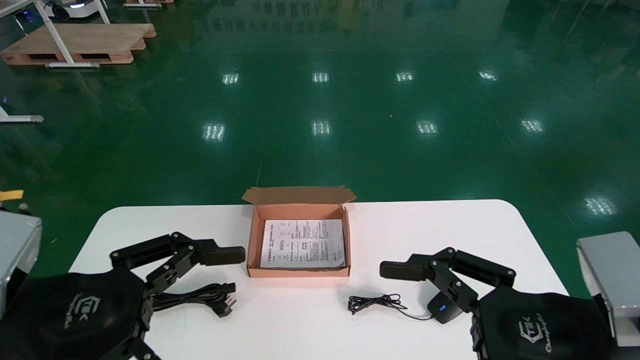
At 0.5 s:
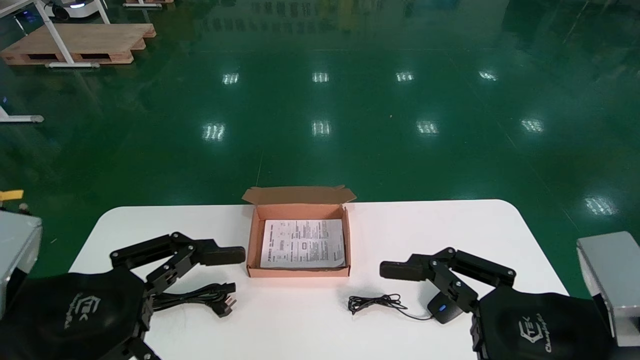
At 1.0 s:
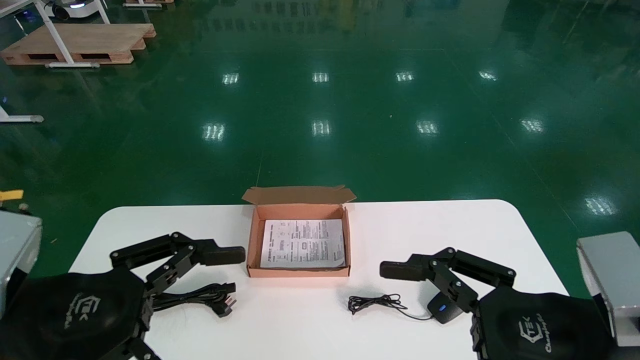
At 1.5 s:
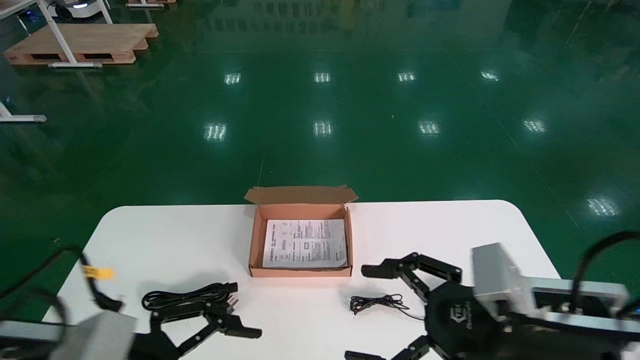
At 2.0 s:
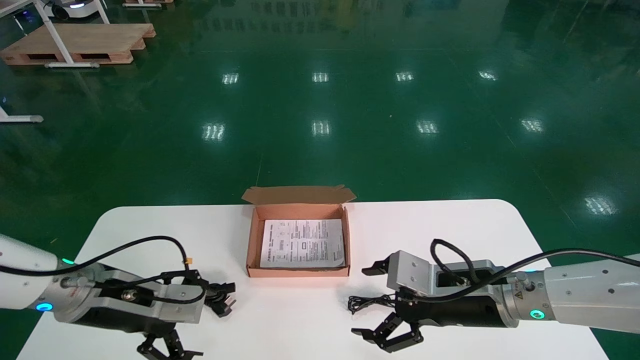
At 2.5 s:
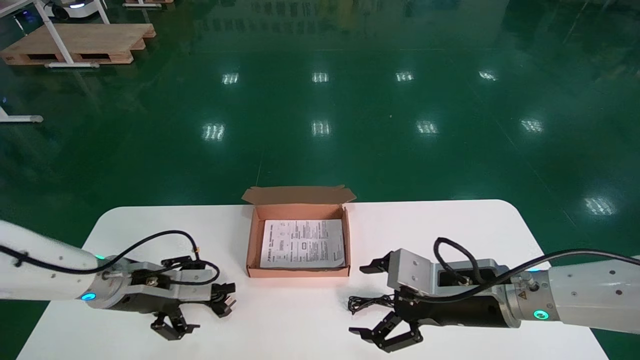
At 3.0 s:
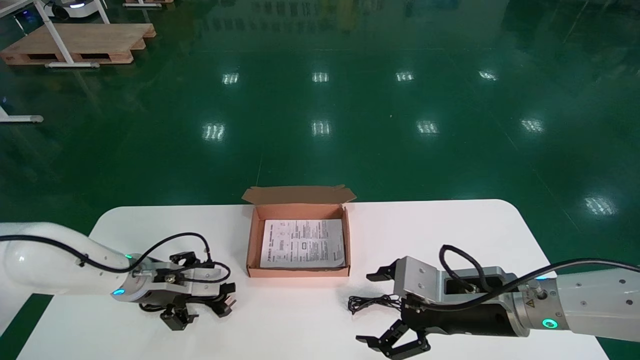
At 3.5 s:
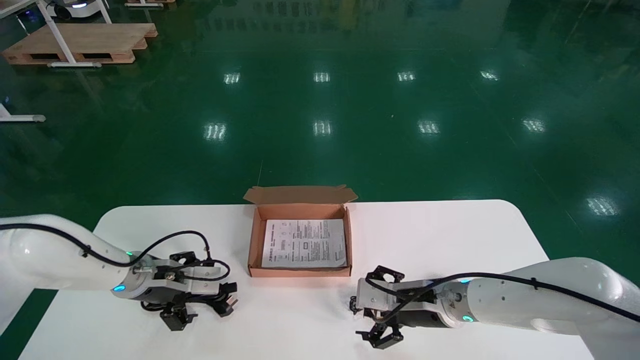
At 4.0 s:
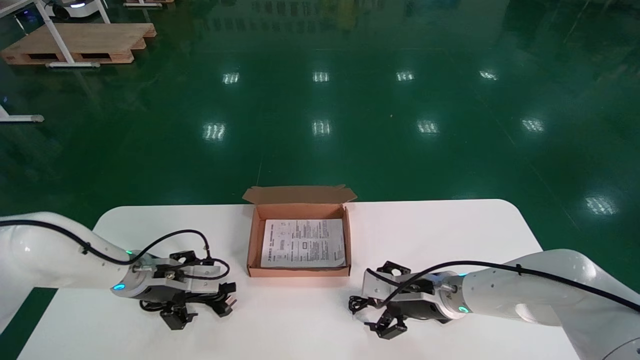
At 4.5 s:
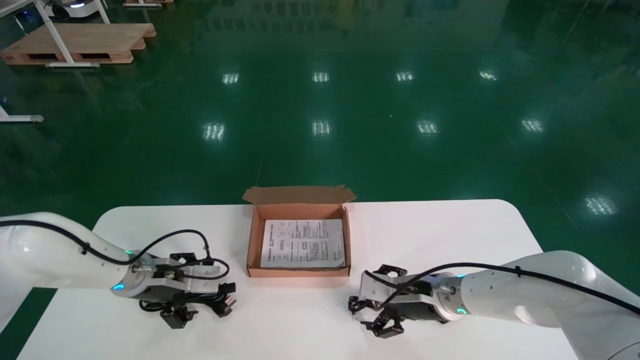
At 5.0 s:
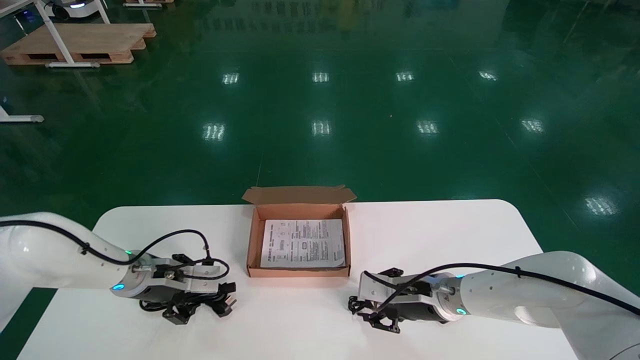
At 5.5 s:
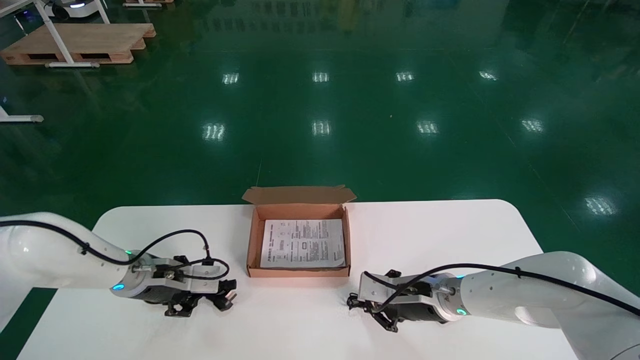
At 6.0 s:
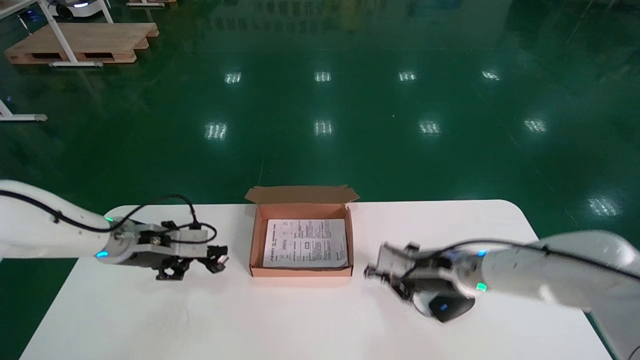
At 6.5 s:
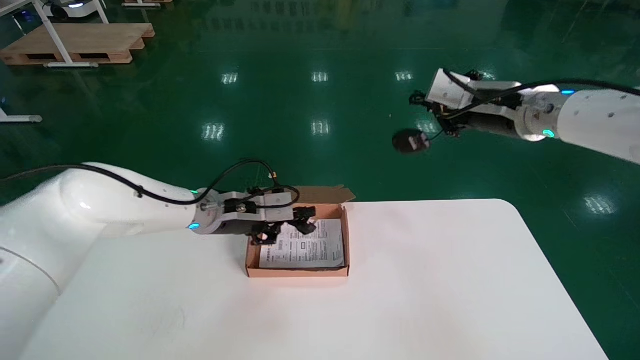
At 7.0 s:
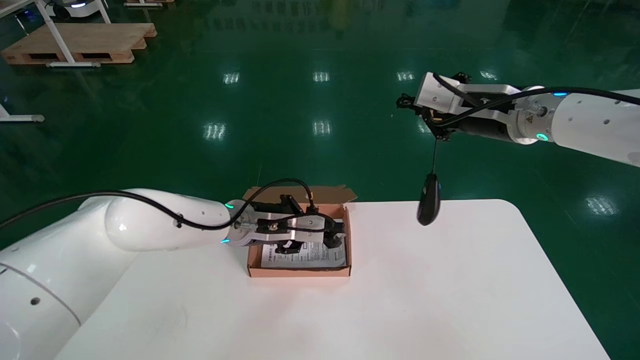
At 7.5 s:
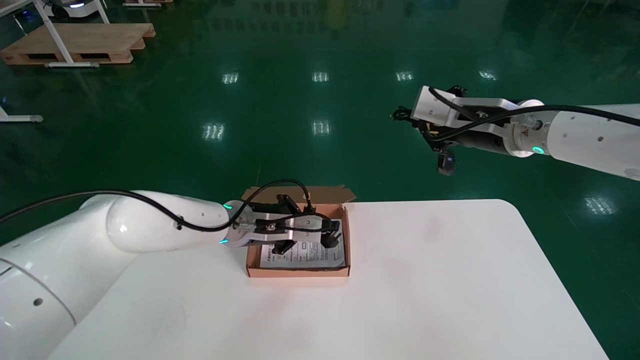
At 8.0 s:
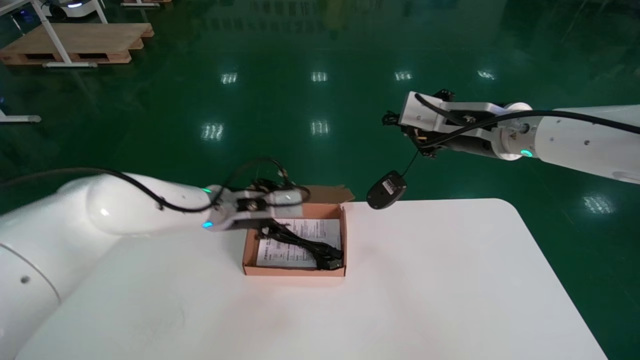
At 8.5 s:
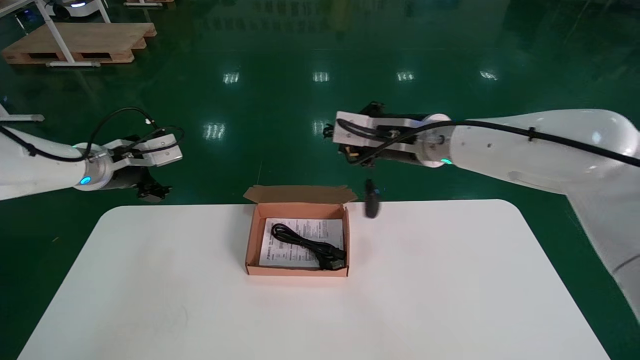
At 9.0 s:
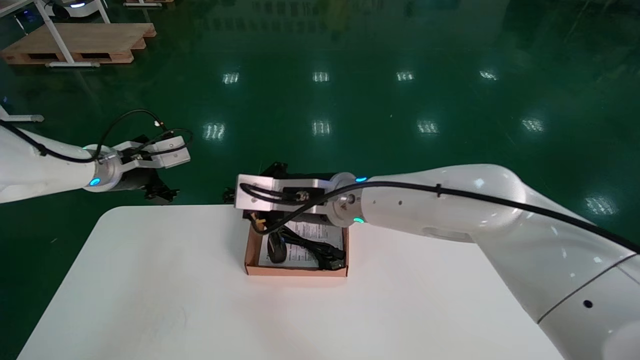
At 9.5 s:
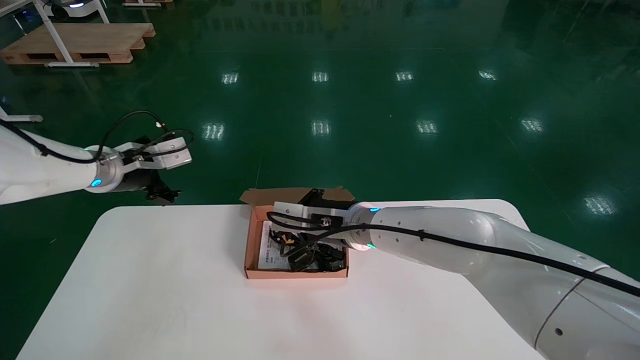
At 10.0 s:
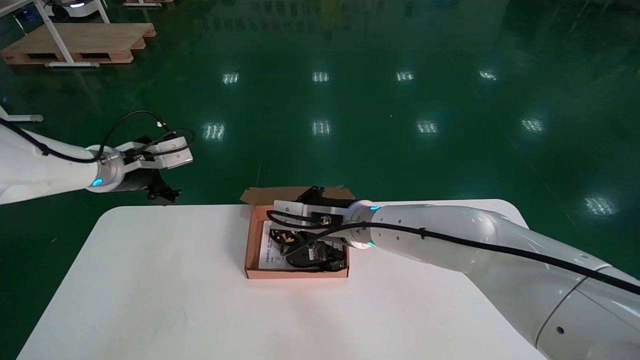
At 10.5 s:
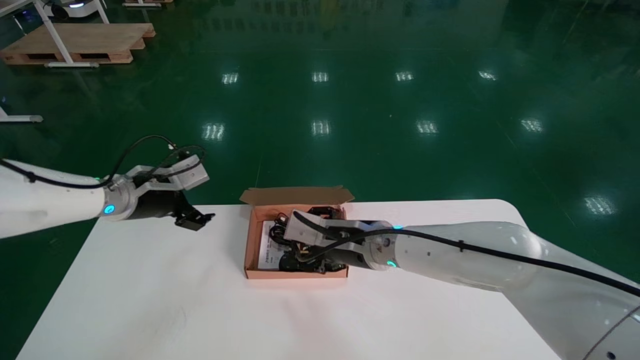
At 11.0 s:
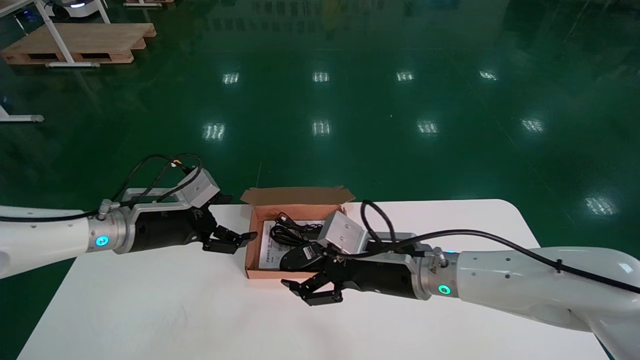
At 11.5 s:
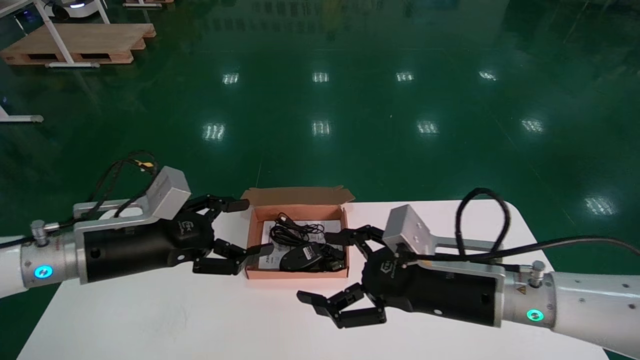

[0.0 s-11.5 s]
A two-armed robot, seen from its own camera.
Step, 1.5 to 6.0 s: Simultaneously pick up the mouse and power cord from the accessory packaging area.
Step, 6.5 to 10.0 s: Place the mouse and power cord into the box.
0.0 to 2.0 s: Both grippers travel together forward, some 15 cm.
2.0 to 4.0 s: The left gripper heads forward, covering some 10 cm; the right gripper heads forward and downward, covering roughly 10 cm.
4.0 to 6.0 s: Both grippers travel together upward, about 5 cm. The left gripper closes. The right gripper closes.
6.0 to 7.5 s: The left gripper heads to the right, covering some 15 cm. Meanwhile the right gripper is displaced upward by some 20 cm.
7.5 to 9.5 s: The left gripper shifts approximately 20 cm to the left and upward, and opens up, while the right gripper moves to the left and downward, about 25 cm.
9.5 to 11.5 s: The right gripper heads to the right and backward, covering some 20 cm, and opens. The left gripper heads backward, downward and to the right, covering approximately 15 cm.

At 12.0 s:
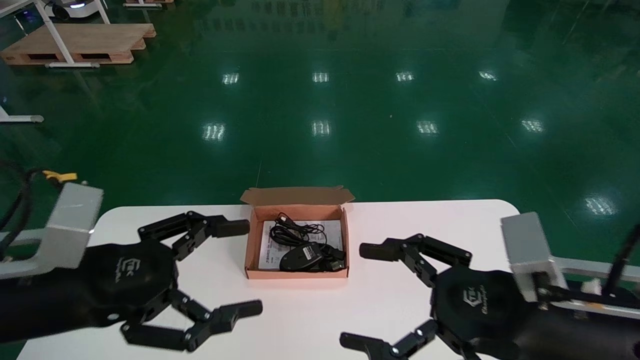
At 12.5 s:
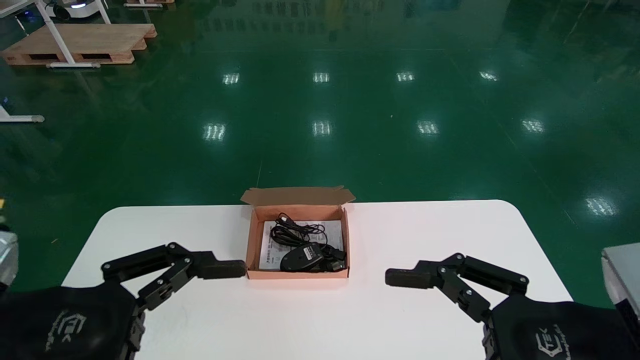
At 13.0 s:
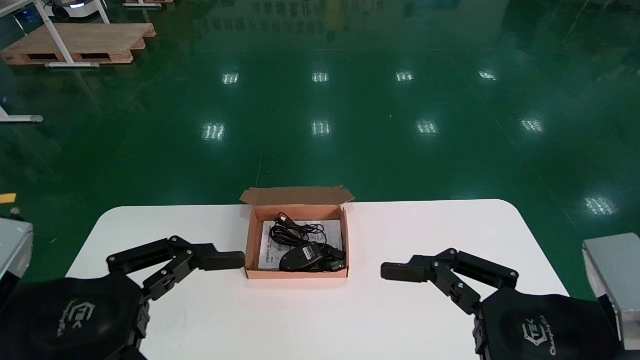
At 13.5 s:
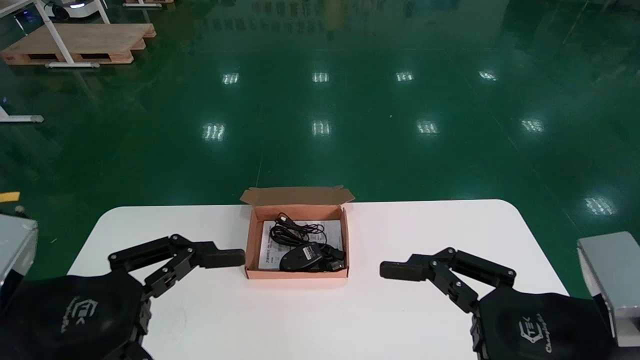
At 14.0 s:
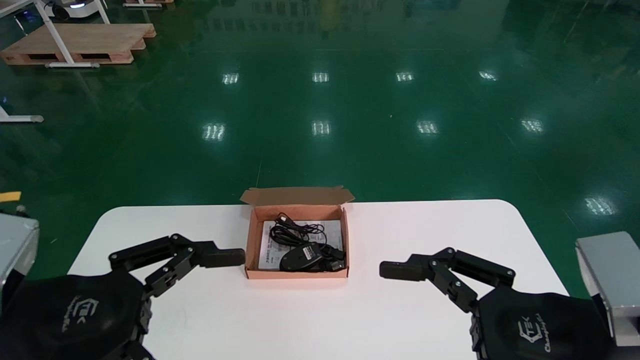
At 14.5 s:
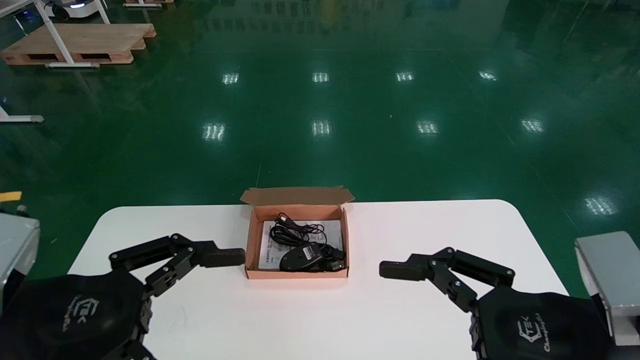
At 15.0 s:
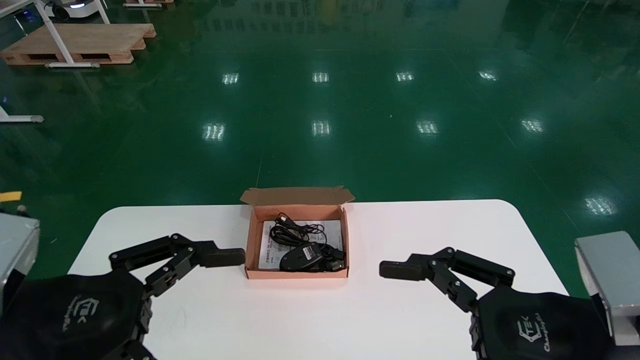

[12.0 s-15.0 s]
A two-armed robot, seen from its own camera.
12.0 to 13.5 s: The grippers stay close to where they were, moving slightly.
13.5 to 15.0 s: Neither gripper changes place.
